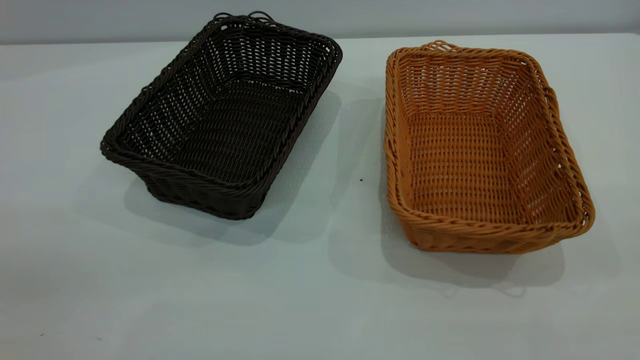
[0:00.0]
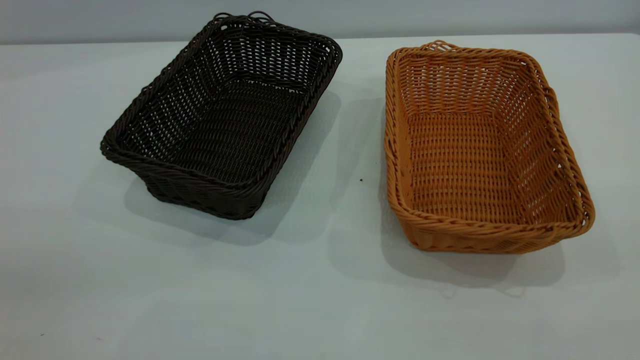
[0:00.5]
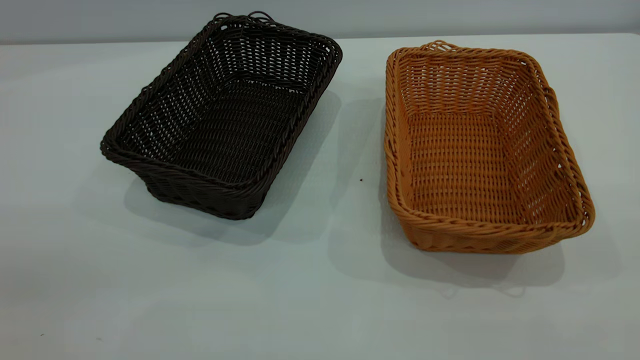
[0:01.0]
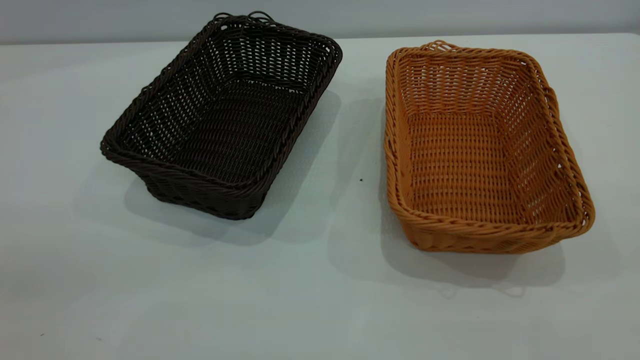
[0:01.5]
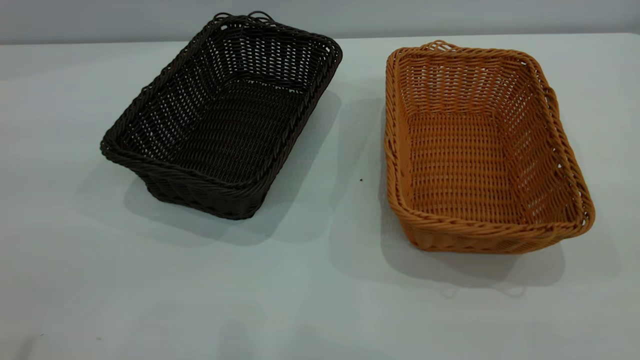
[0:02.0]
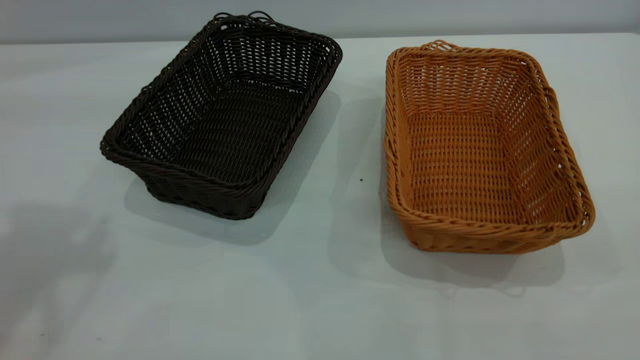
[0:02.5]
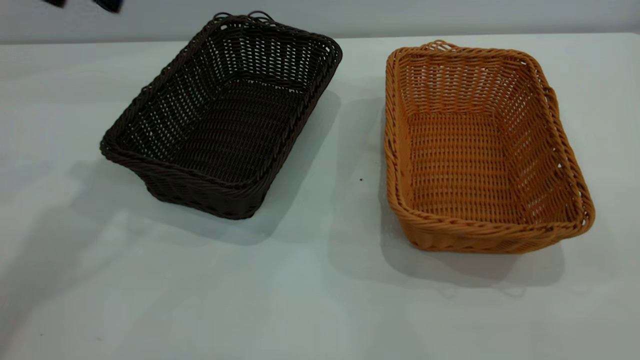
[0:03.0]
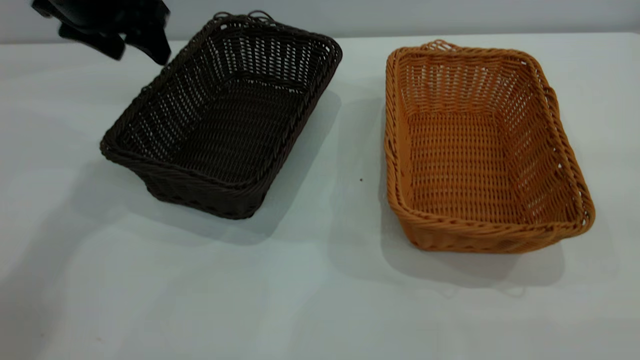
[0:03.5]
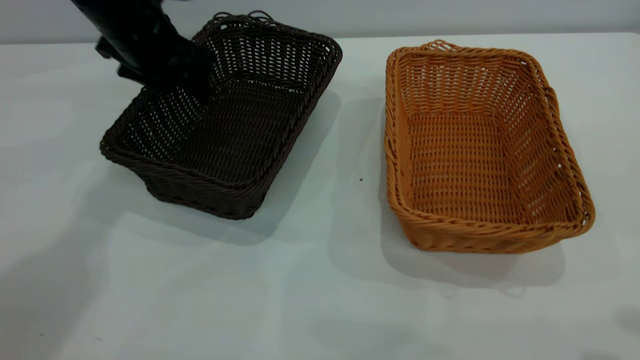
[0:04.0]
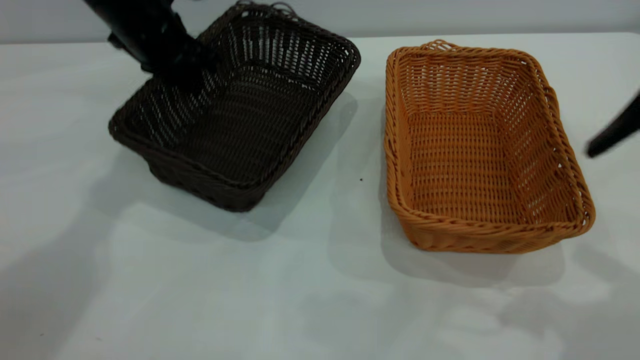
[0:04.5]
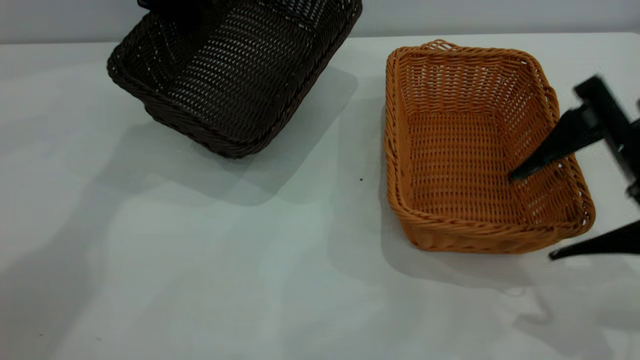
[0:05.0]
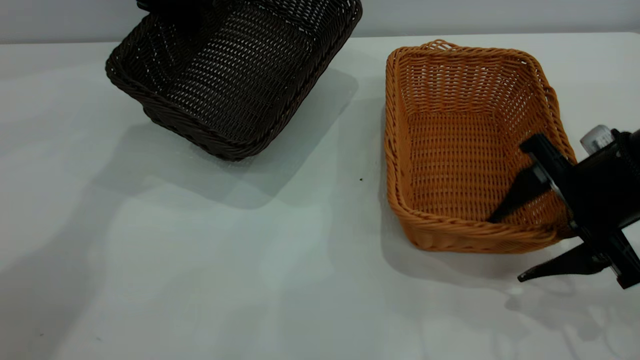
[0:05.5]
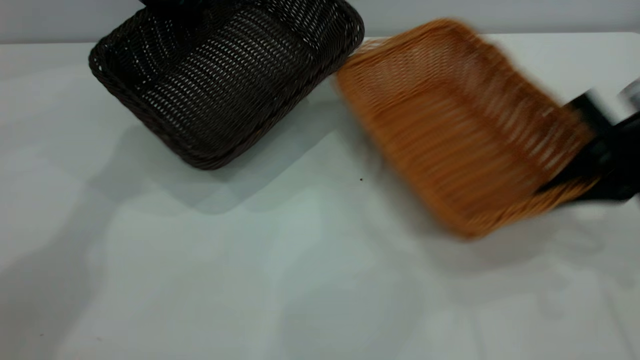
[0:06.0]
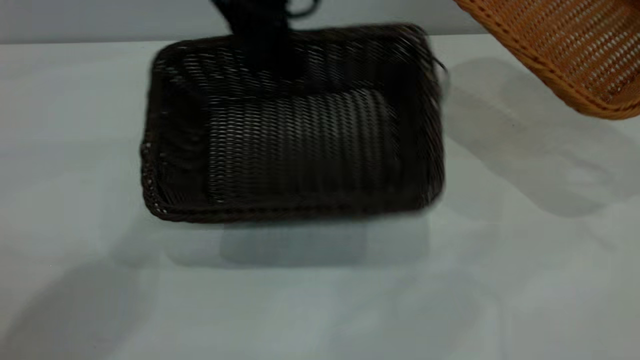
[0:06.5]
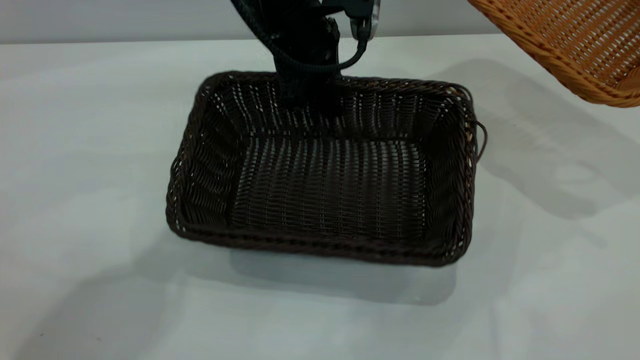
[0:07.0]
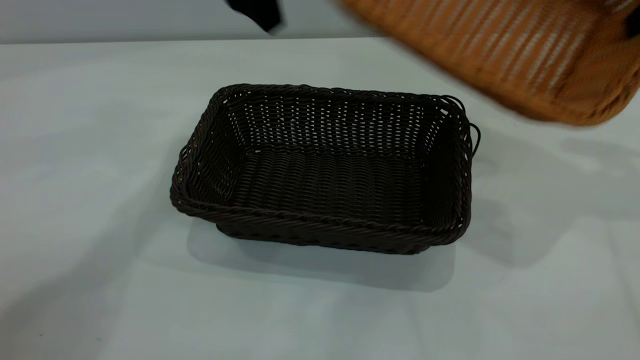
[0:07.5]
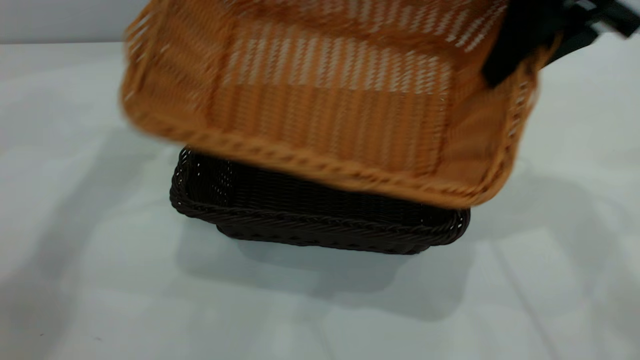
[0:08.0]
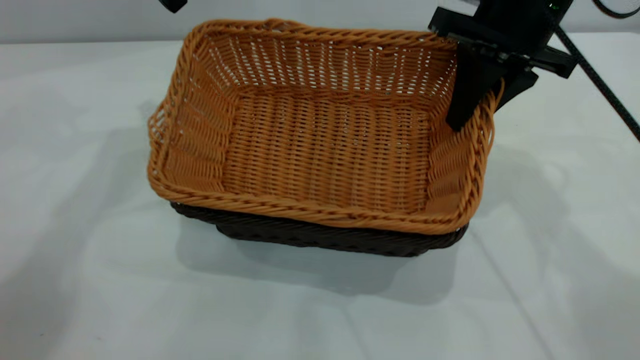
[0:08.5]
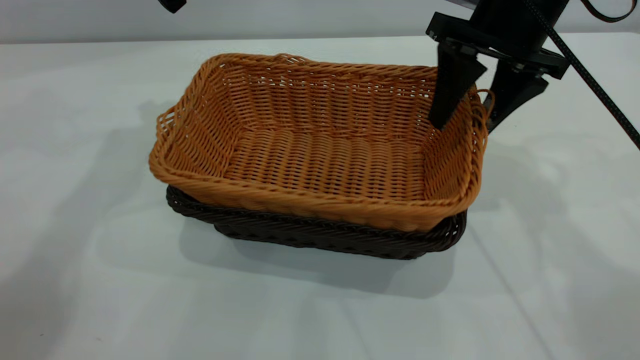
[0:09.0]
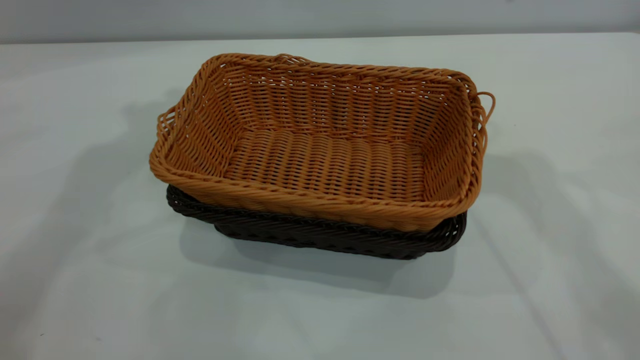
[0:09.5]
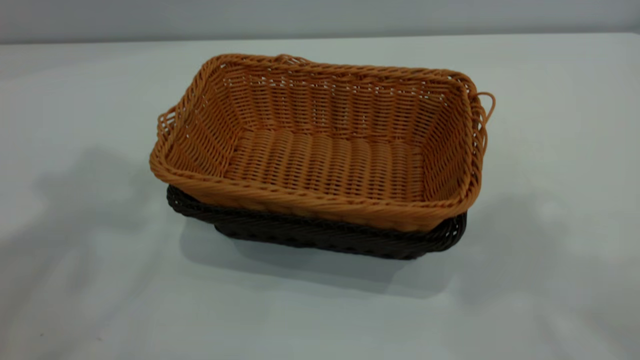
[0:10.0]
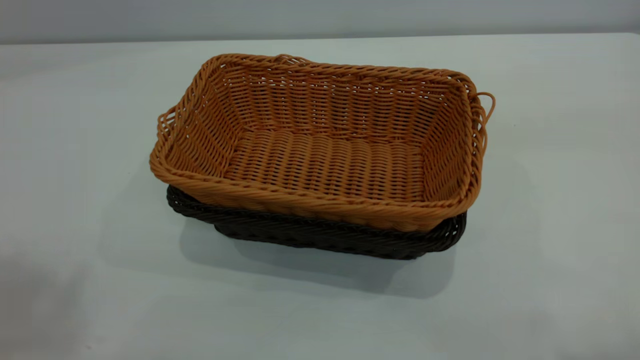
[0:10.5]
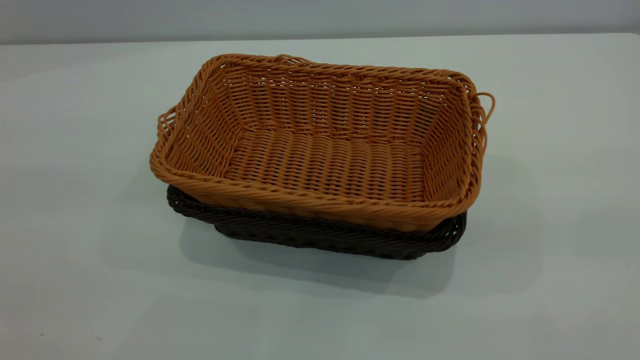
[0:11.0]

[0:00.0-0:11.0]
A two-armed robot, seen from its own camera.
Task of the whole recording: the left gripper grasp the black basket and place it in the center of the table, the right gripper grasp the brown basket and place it inside the black one.
Step, 0:00.0 to 0:06.0: Pick up the light basket with the right gripper.
Step, 0:06.5 to 0:07.0: Move the dark basket to the center of view.
Step, 0:07.5 to 0:09.0: Place the light basket on the dark basket.
0:02.0 to 0:03.5: The left gripper goes some 40 cm forward and downward.
0:03.5 to 0:05.5: The left gripper shifts approximately 5 cm forward, and closes. Meanwhile the right gripper shifts about 30 cm downward and forward, and closes.
0:05.5 to 0:07.5: The left gripper heads to the right and upward, covering some 10 cm, and opens. The right gripper shifts roughly 20 cm upward, forward and to the right, and closes its fingers.
0:07.5 to 0:09.0: The right gripper goes approximately 15 cm to the left and downward, and opens its fingers, while the left gripper is displaced to the left by approximately 10 cm.
0:09.0 to 0:11.0: Both grippers travel together backward and upward, some 40 cm.
